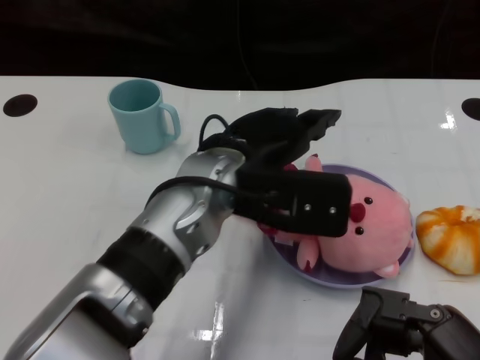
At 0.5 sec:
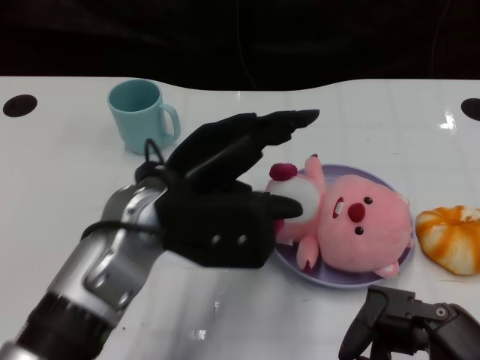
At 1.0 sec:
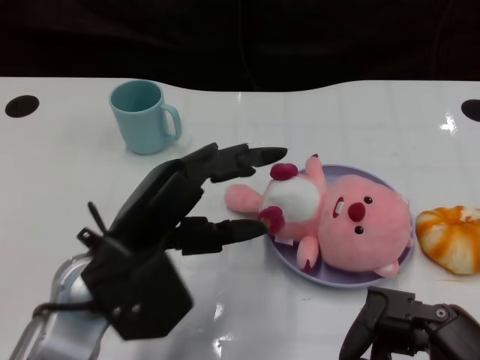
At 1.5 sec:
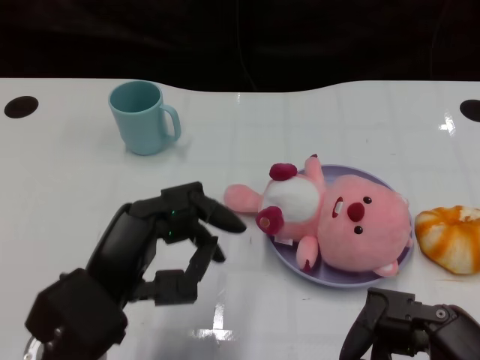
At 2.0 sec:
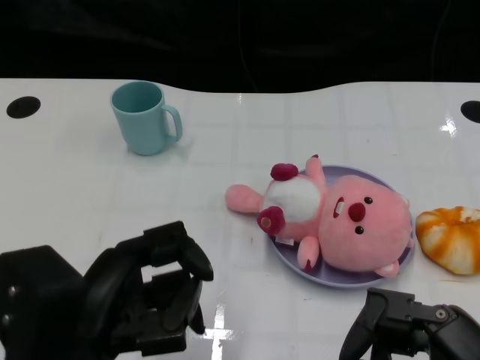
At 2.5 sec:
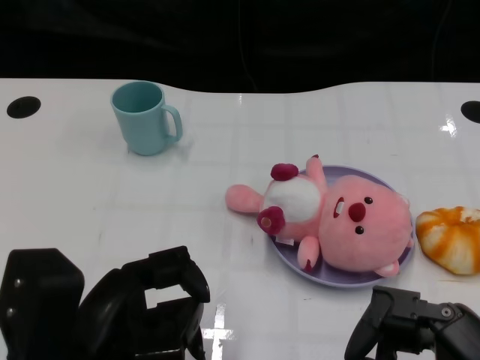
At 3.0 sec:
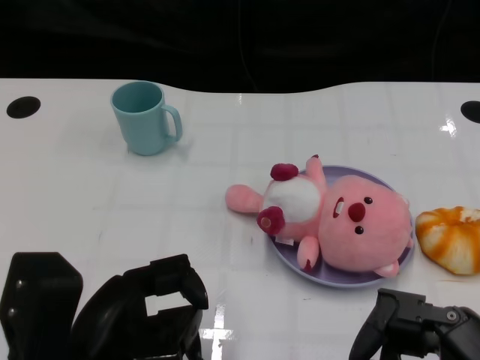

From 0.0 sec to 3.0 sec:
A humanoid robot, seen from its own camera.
Task of the whole recording: Pick up the doll on one side of the plate and place it into the plate.
From 0.0 sec to 1.5 sec: The left hand goes about 20 cm to the left and backward.
